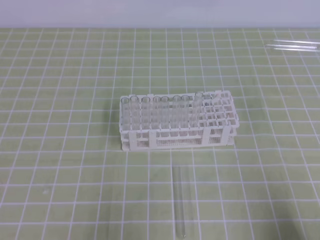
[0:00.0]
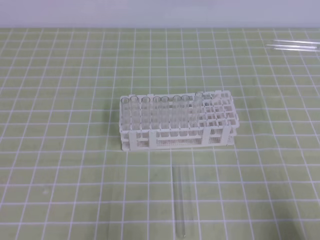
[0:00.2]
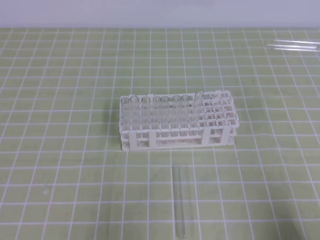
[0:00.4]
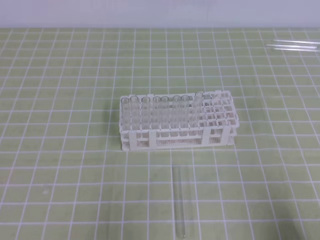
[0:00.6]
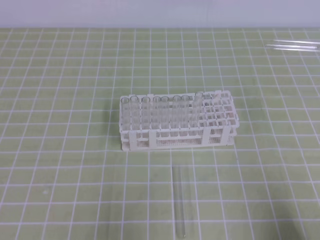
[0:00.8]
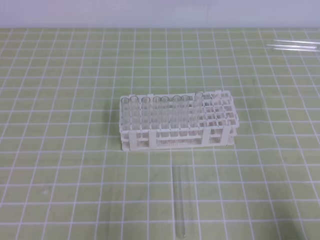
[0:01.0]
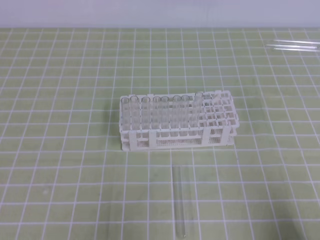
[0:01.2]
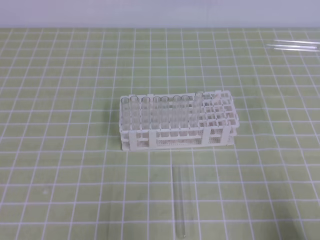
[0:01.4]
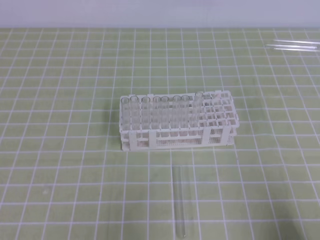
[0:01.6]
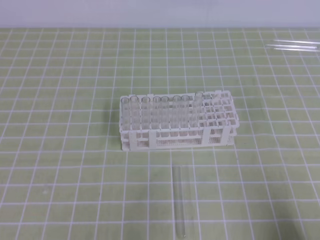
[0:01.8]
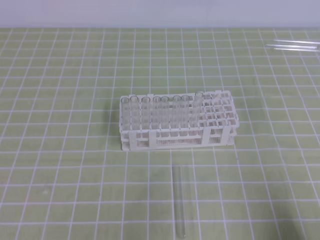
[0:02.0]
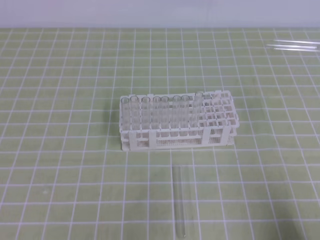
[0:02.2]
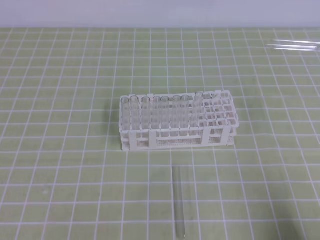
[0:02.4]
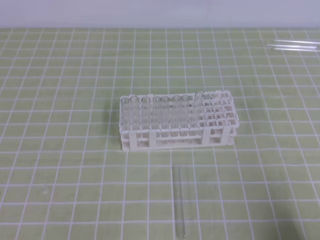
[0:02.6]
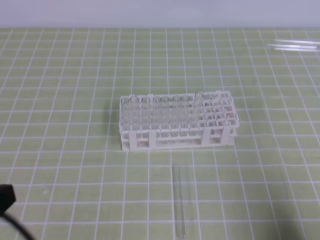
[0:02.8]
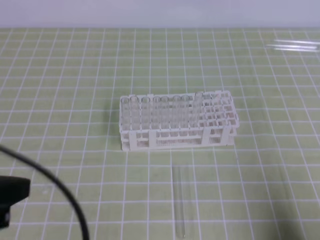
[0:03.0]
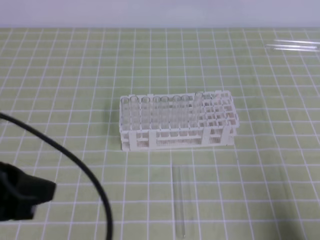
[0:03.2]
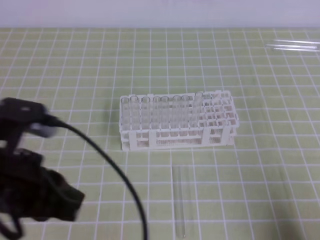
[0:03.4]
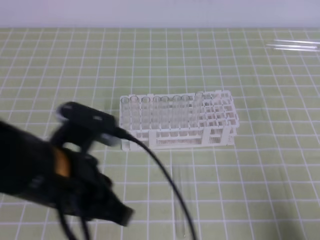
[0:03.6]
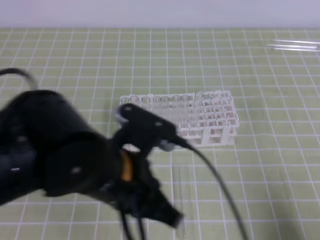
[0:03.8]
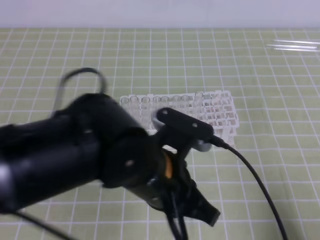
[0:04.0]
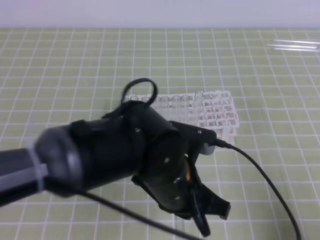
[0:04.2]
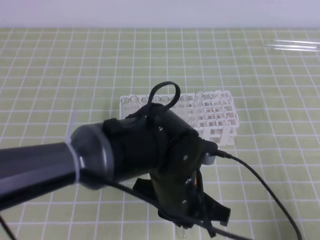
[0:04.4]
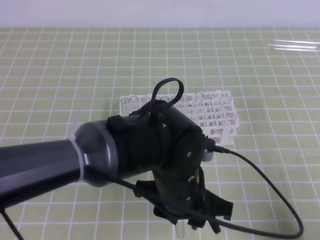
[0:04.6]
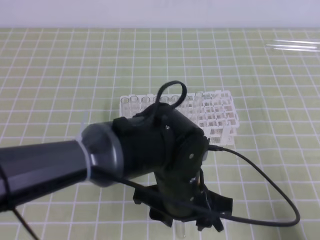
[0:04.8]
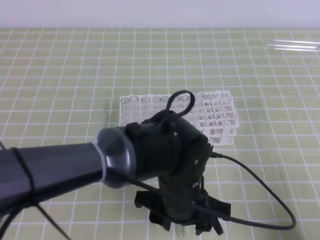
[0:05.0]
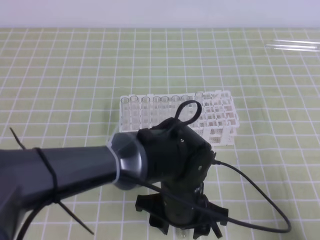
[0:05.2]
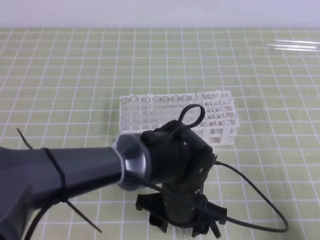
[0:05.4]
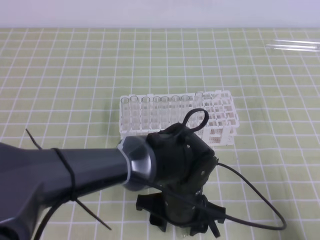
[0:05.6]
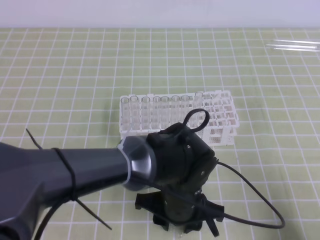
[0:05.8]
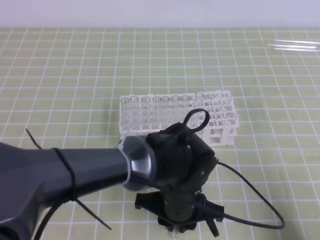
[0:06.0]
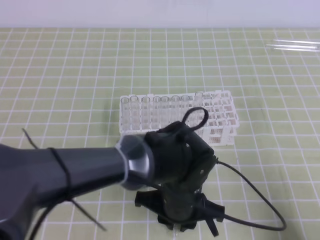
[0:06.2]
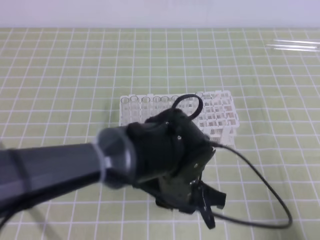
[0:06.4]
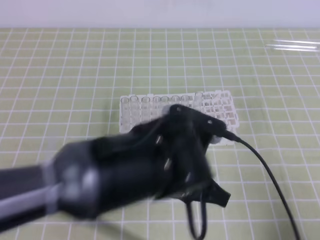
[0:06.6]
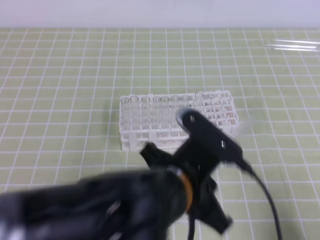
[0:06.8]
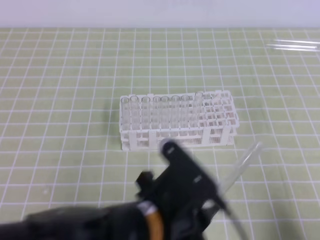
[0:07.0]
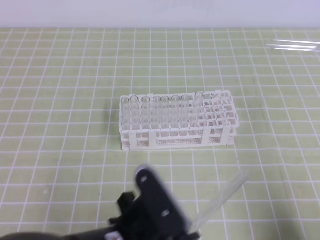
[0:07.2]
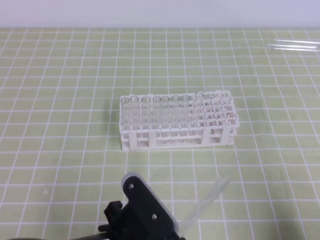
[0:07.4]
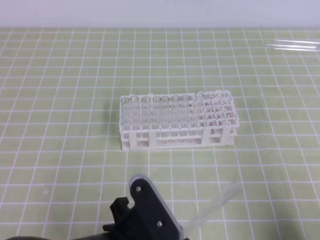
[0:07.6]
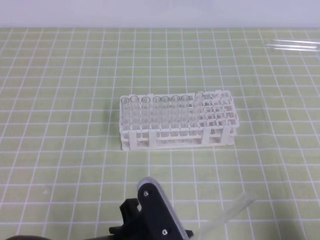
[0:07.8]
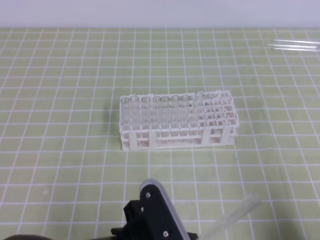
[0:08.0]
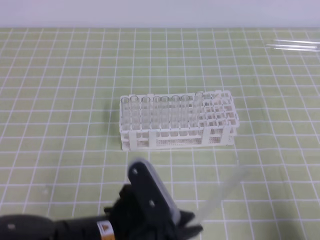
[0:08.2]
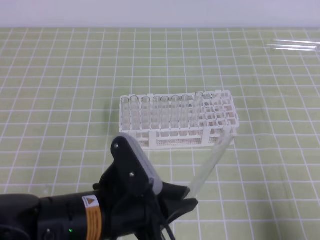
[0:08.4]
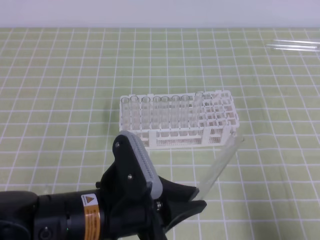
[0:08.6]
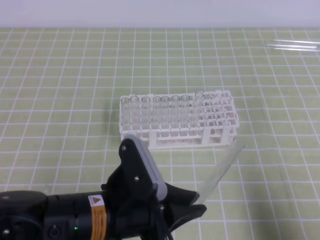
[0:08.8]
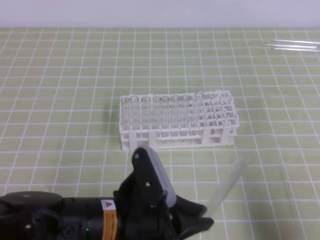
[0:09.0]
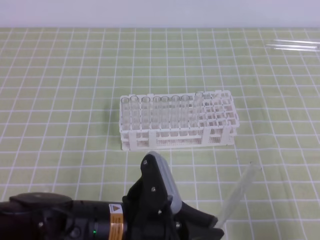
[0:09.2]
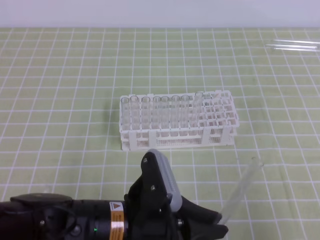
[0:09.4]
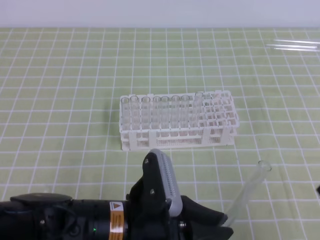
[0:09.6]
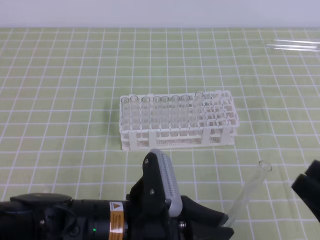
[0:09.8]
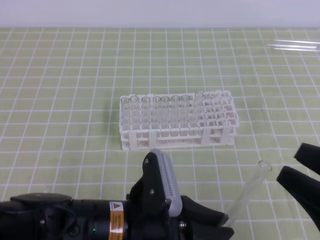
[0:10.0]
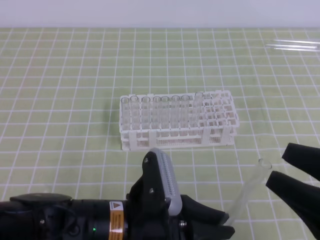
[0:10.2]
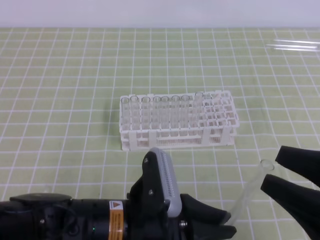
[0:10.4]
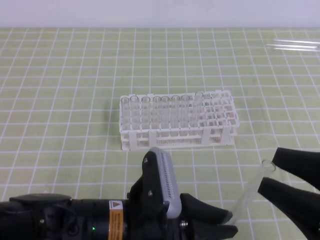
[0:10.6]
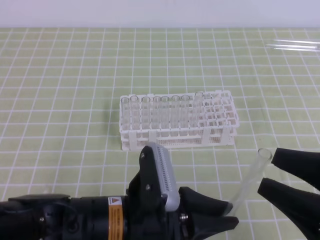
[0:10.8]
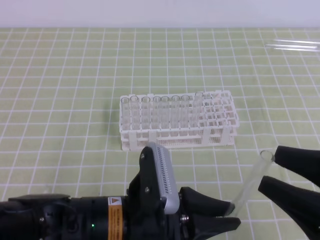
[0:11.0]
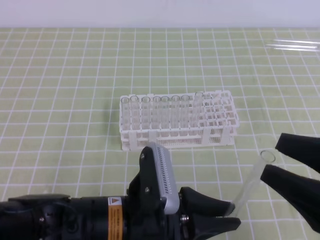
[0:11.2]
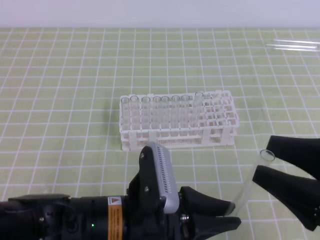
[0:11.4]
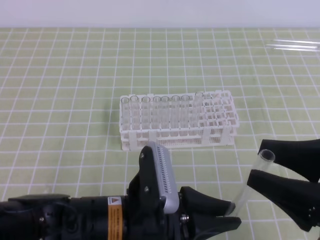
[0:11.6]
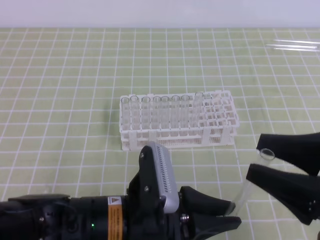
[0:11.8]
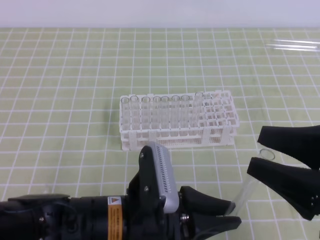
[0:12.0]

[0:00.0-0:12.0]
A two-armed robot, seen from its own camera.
0:01.6 to 0:03.0: The left gripper moves upward, about 15 cm.
0:03.0 to 0:04.4: The left gripper moves to the right and downward, roughly 25 cm.
0:04.4 to 0:06.0: The left gripper is displaced downward by approximately 5 cm, and opens, then closes once more.
0:06.0 to 0:07.6: The left gripper travels backward, to the left and upward by approximately 15 cm.
0:09.0 to 0:10.4: The right gripper heads upward and to the left, covering roughly 10 cm, and opens its fingers.
0:10.4 to 0:12.0: The grippers make only small movements.

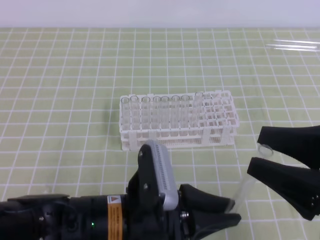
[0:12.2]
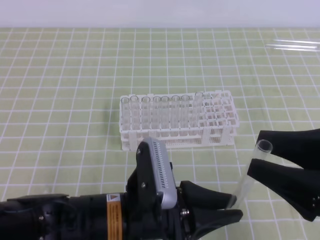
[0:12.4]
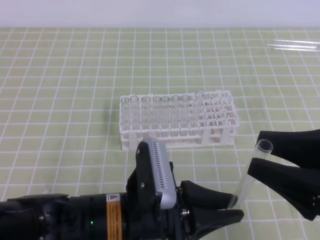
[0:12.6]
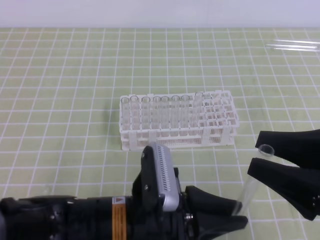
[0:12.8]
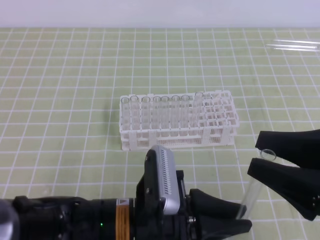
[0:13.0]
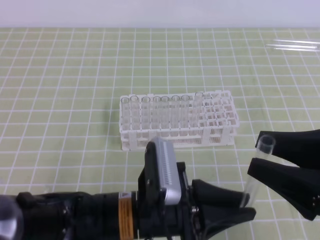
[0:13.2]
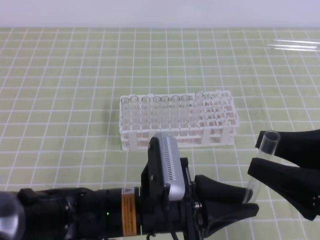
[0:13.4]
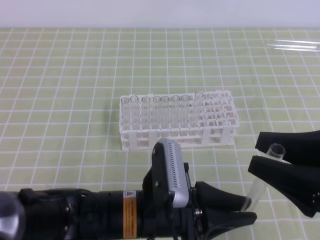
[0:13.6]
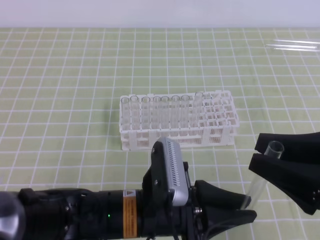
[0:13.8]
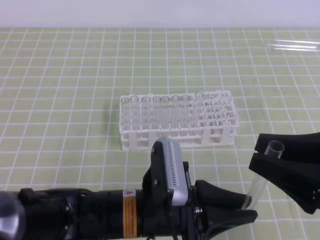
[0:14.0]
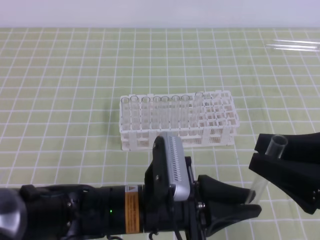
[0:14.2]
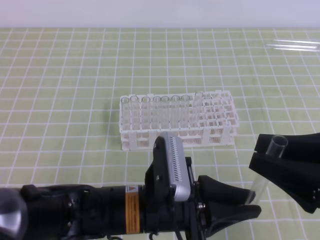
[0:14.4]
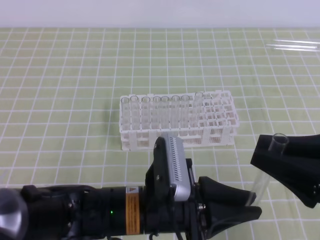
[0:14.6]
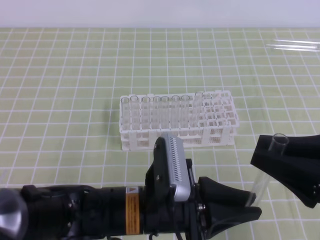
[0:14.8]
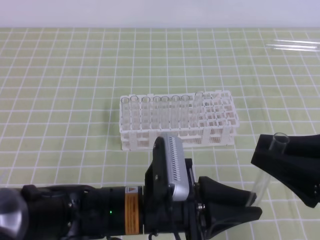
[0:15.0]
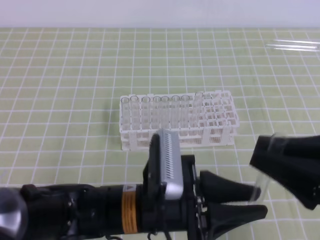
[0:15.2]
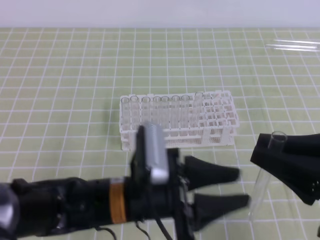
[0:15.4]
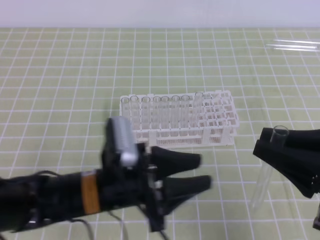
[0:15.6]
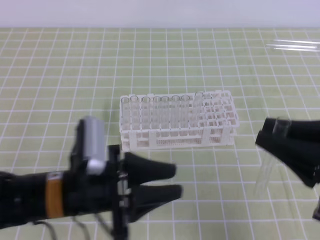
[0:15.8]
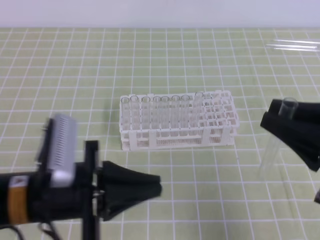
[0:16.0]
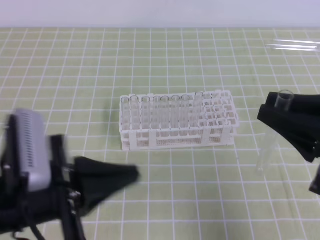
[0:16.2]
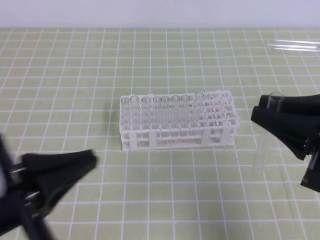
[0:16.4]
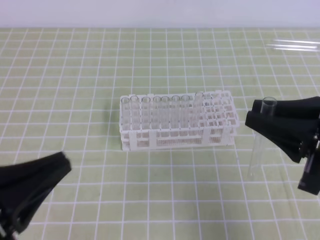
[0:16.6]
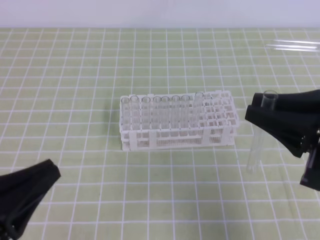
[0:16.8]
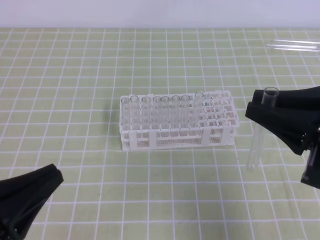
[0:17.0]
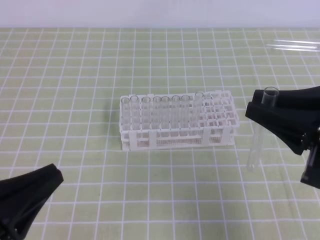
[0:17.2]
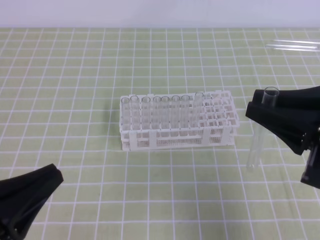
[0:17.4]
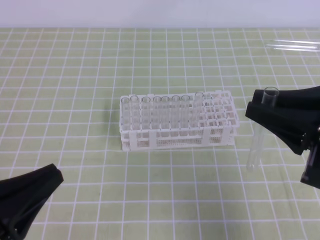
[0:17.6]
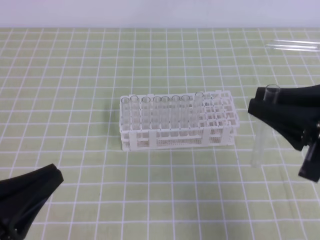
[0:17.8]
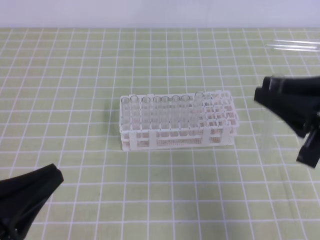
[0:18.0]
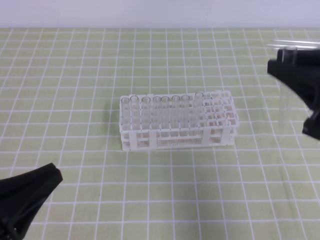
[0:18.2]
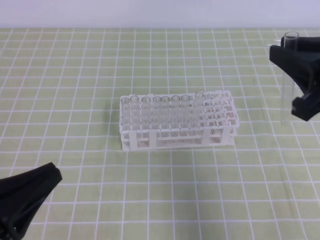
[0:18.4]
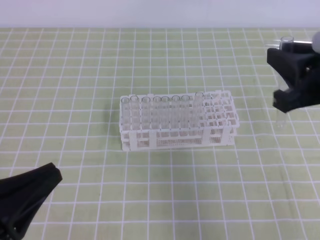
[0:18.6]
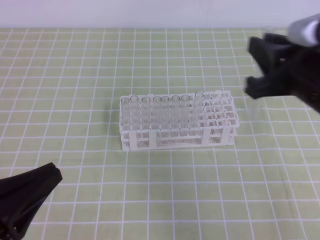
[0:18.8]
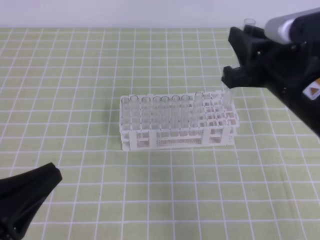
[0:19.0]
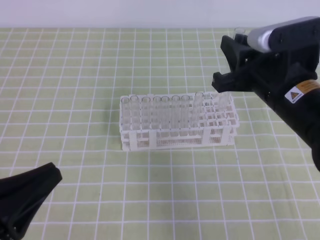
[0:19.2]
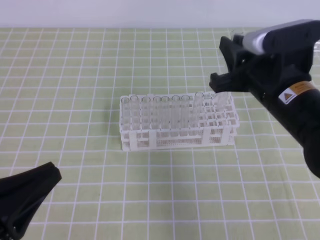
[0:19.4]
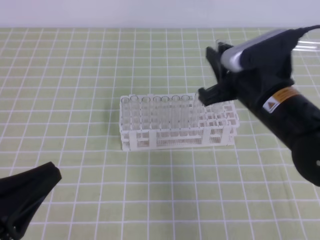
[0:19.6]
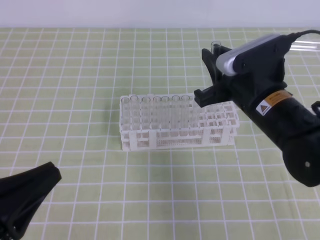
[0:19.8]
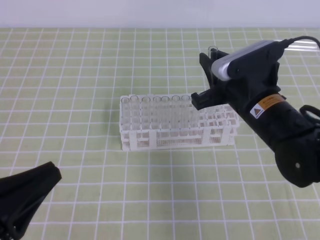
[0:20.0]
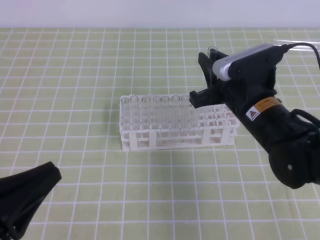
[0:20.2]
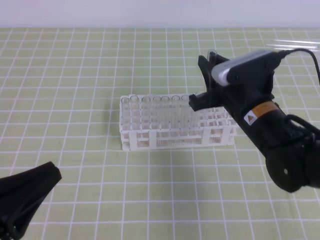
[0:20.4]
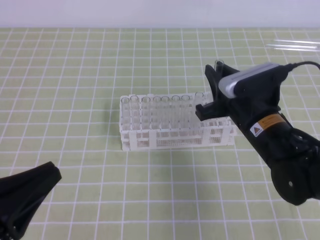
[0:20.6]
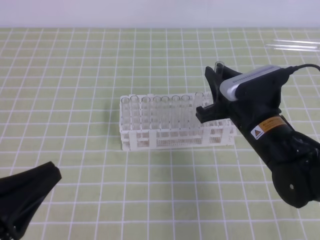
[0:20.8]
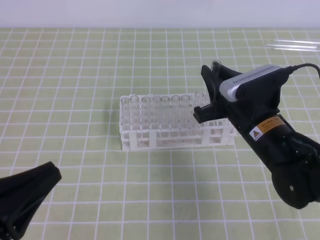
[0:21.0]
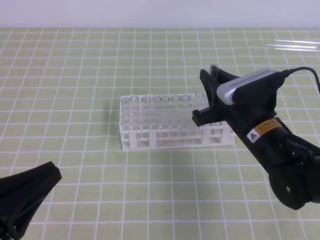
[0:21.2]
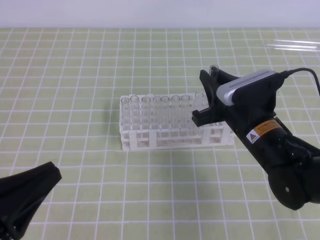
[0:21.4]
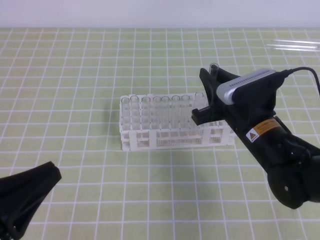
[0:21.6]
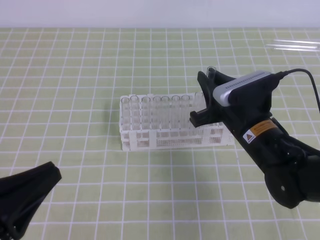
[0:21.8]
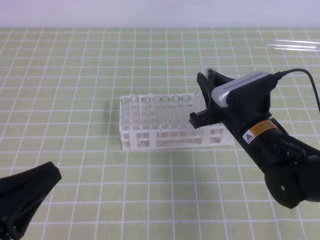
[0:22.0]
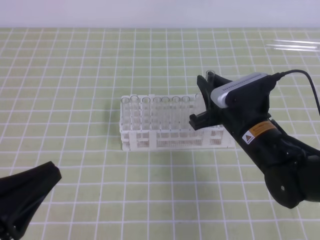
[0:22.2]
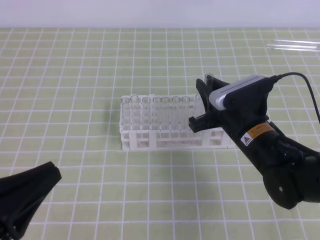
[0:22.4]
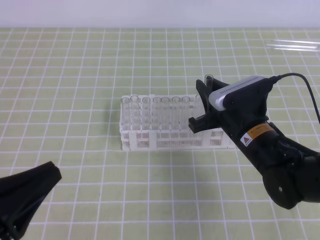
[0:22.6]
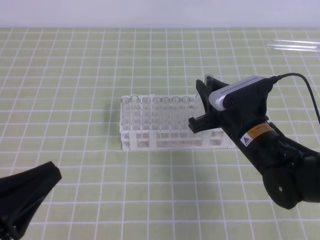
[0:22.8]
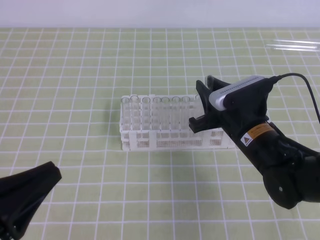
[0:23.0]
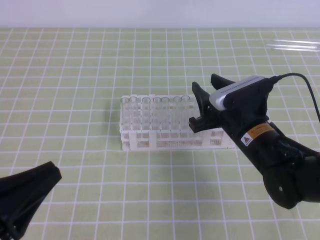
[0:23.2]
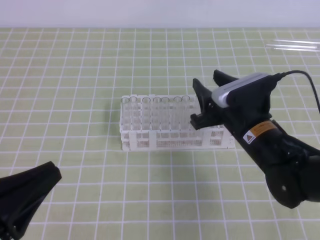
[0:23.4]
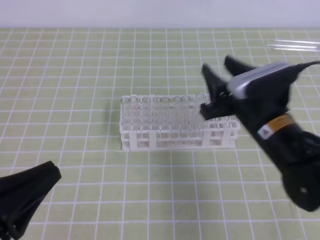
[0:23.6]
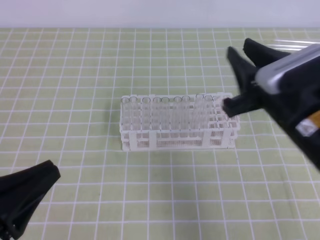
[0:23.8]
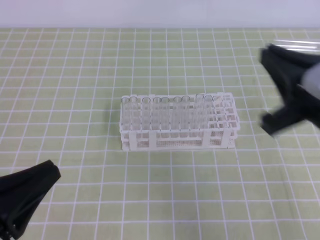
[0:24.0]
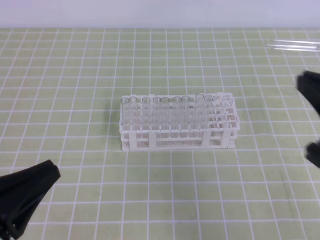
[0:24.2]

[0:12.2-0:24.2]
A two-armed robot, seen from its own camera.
0:12.2 to 0:13.8: The grippers make only small movements.
0:13.8 to 0:15.2: The right gripper closes. Meanwhile the left gripper opens its fingers.
0:15.2 to 0:16.6: The left gripper moves to the left and upward, roughly 20 cm, and closes its fingers.
0:16.6 to 0:18.2: There are only small adjustments of the grippers.
0:18.2 to 0:19.8: The right gripper travels to the left, forward and downward by approximately 15 cm.
0:19.8 to 0:21.2: The right gripper heads downward, covering about 5 cm.
0:21.2 to 0:22.6: The grippers stay close to where they were, moving slightly.
0:22.6 to 0:24.2: The right gripper is displaced upward, backward and to the right by some 20 cm, and opens, then closes again.
